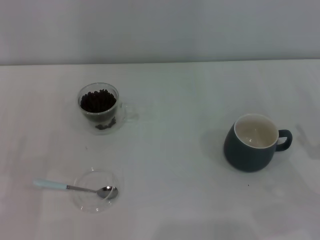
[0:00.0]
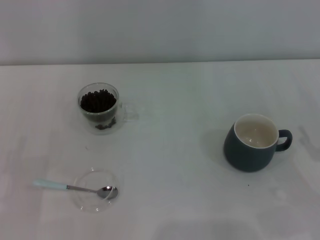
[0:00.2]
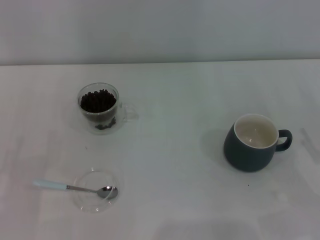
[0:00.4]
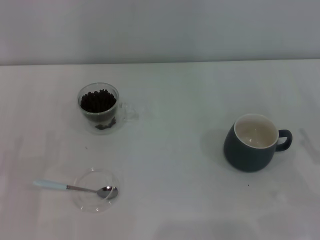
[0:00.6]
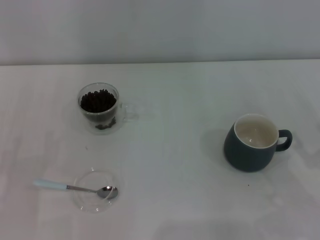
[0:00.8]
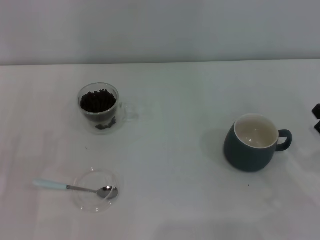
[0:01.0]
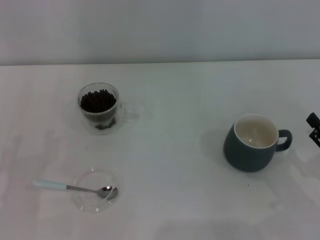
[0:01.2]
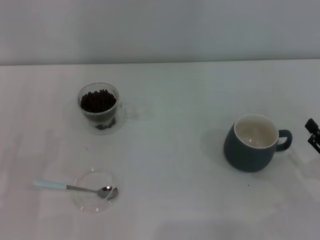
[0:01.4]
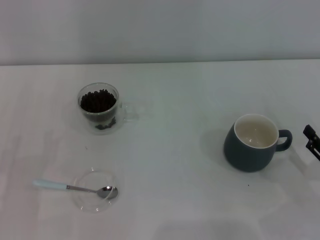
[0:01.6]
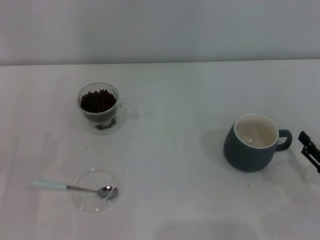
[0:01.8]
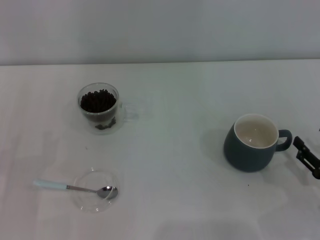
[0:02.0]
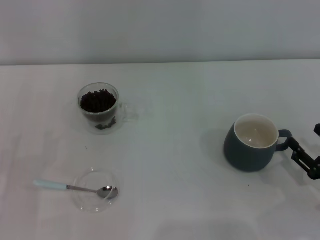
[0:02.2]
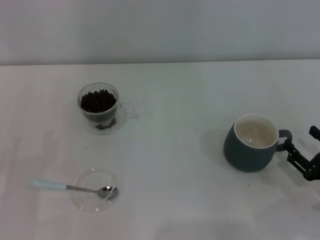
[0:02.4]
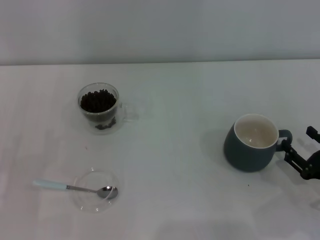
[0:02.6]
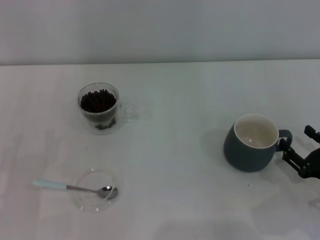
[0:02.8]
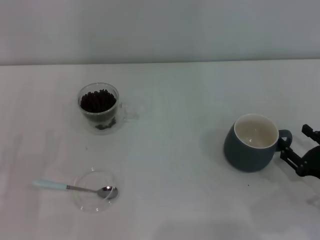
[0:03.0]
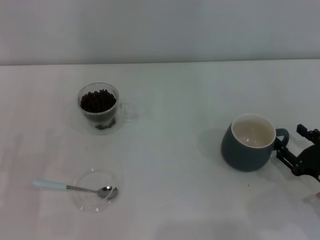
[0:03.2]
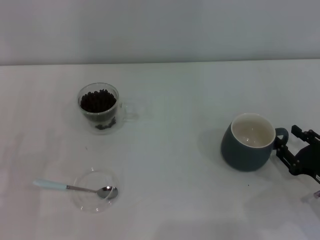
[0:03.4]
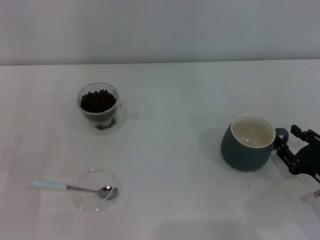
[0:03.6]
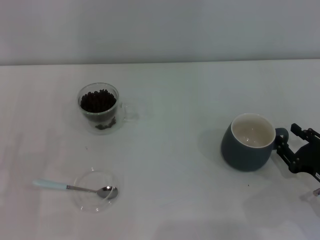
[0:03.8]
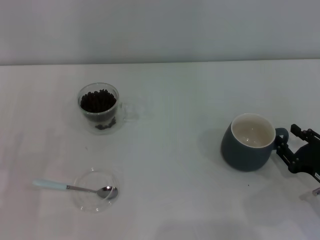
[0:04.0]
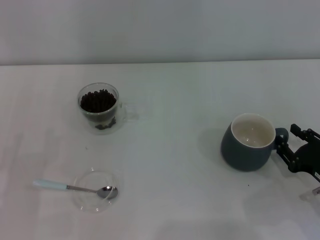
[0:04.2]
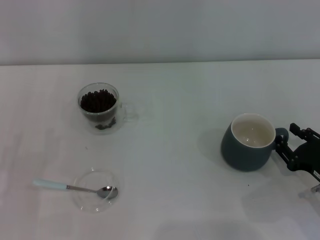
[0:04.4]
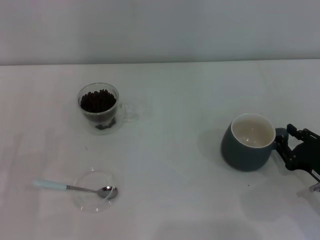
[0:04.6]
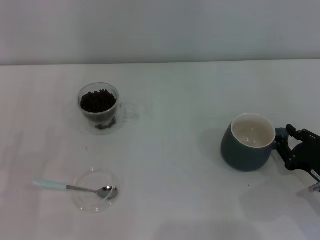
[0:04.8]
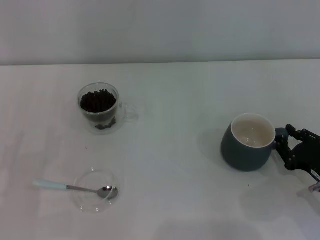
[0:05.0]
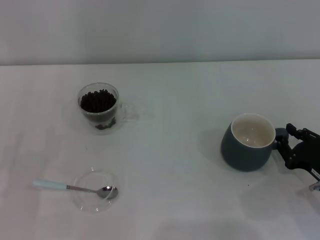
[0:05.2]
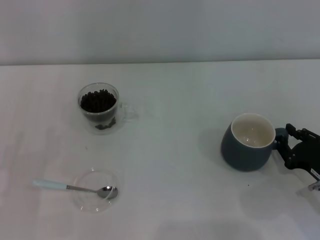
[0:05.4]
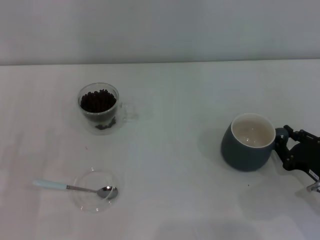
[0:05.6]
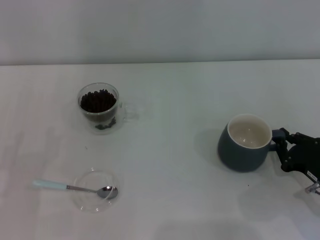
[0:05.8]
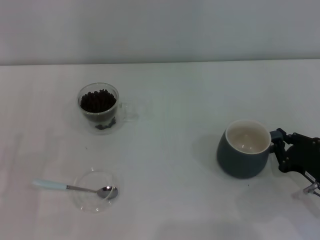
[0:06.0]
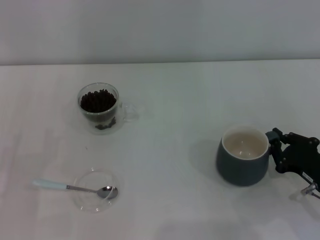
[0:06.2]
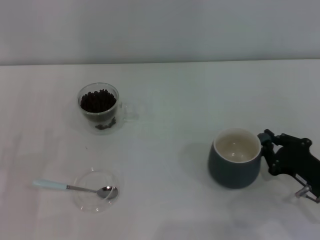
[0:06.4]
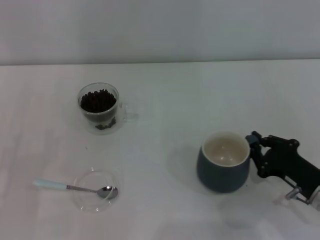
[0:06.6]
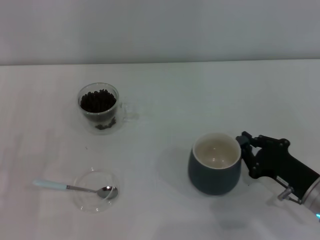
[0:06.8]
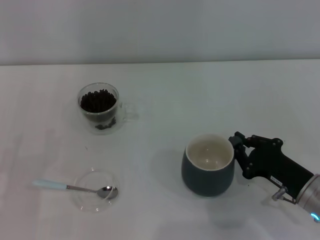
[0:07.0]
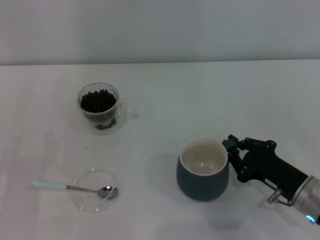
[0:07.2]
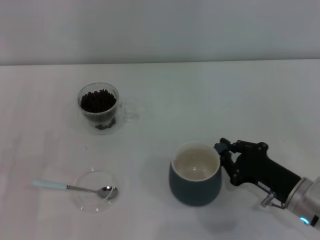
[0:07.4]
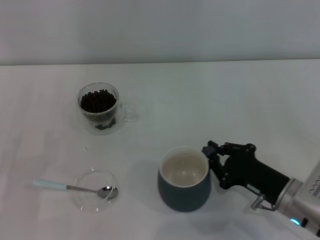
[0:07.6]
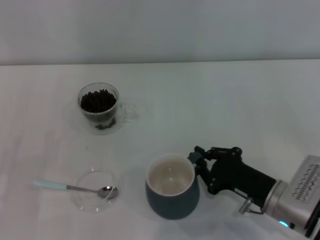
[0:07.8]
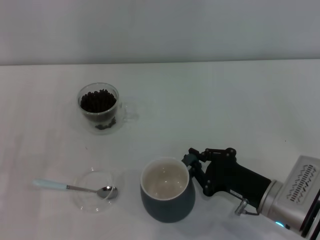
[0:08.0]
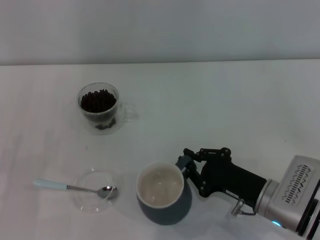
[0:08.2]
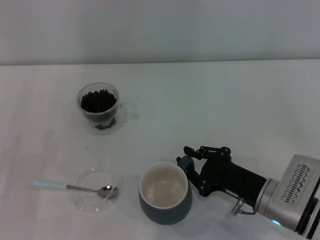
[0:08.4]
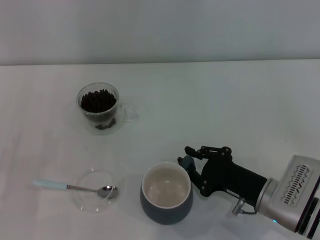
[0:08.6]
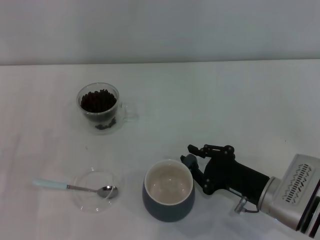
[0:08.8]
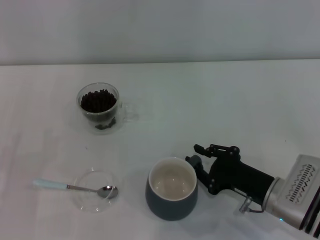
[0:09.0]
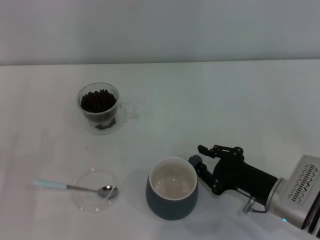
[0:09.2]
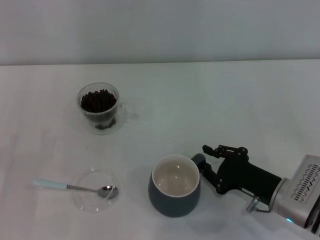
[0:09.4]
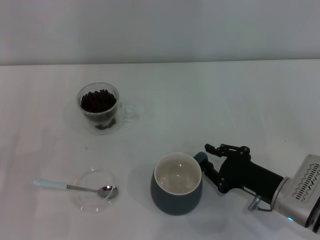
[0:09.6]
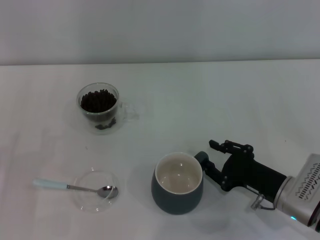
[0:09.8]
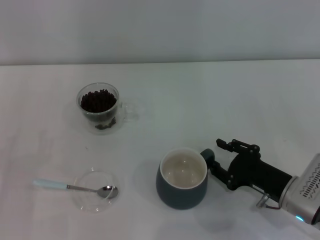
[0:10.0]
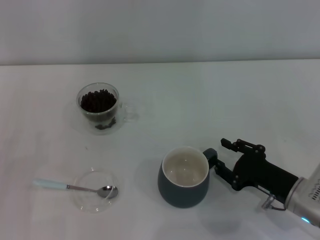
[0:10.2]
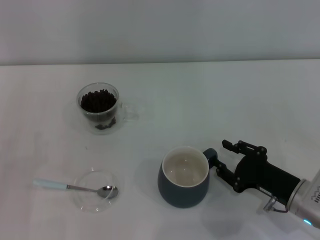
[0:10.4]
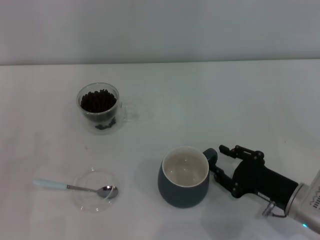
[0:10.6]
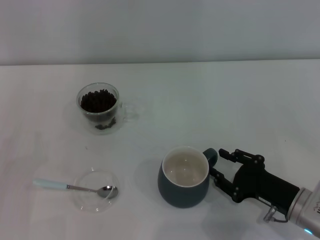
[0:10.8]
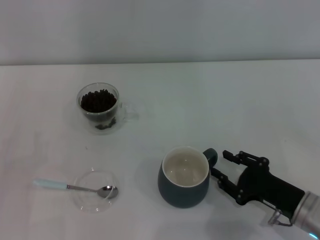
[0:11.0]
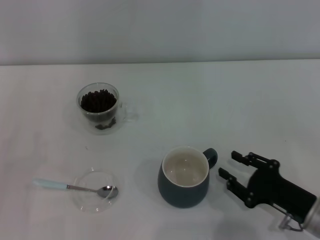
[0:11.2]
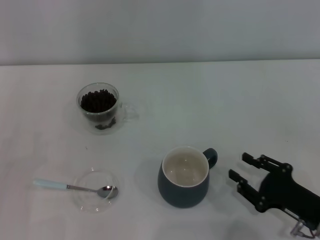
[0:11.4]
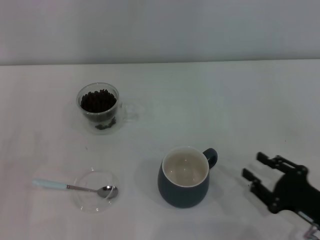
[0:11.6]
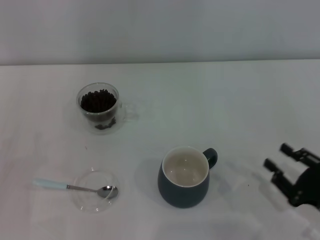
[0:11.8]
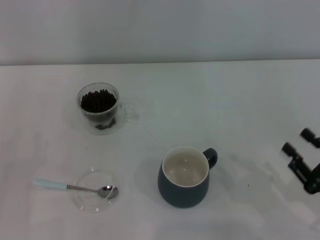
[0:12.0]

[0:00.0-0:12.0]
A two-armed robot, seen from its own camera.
Task of the whole recording: Use a blue spoon to take out the coffee beans from the glass and pour them into the gray cup.
Step, 0:00.0 to 0:11.4: Move the cup to the center of view with the left gripper.
0:01.6 to 0:04.4: There are only small adjustments of the grippers.
0:04.4 to 0:06.0: The right gripper closes up.
0:06.0 to 0:07.6: The right gripper moves to the left, roughly 10 cm.
0:07.6 to 0:10.4: There are only small adjustments of the grippers.
0:10.4 to 0:12.0: The right gripper is displaced backward and to the right by roughly 10 cm.

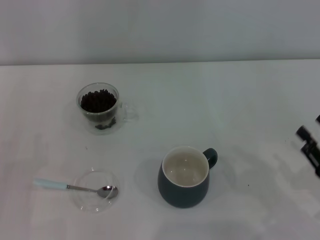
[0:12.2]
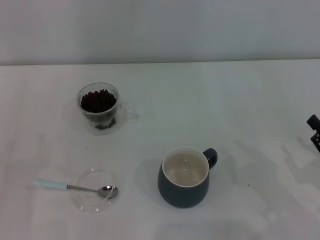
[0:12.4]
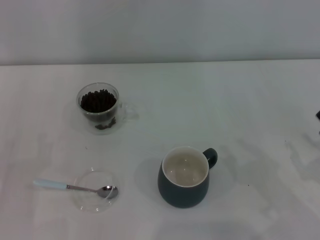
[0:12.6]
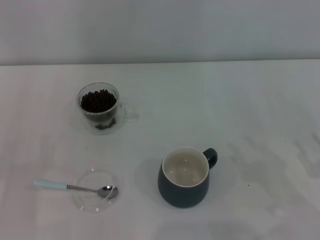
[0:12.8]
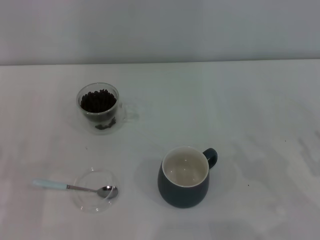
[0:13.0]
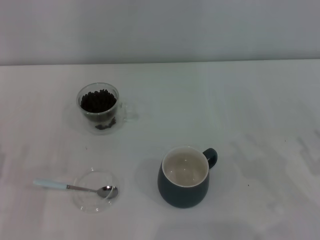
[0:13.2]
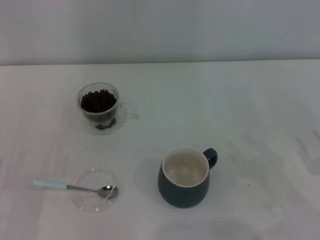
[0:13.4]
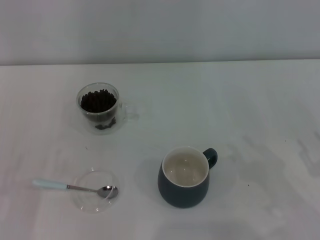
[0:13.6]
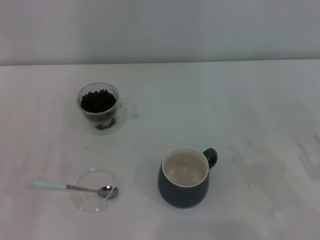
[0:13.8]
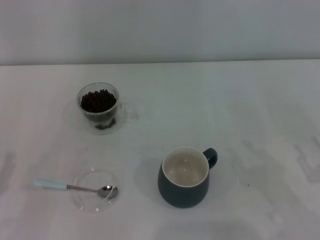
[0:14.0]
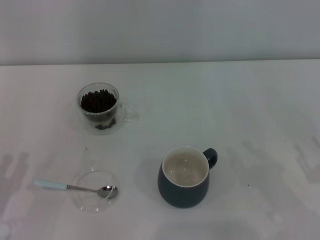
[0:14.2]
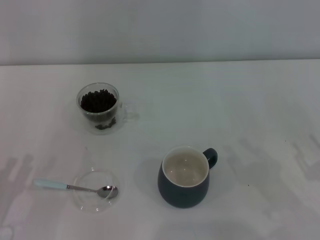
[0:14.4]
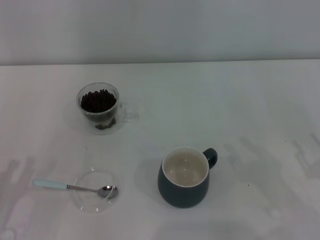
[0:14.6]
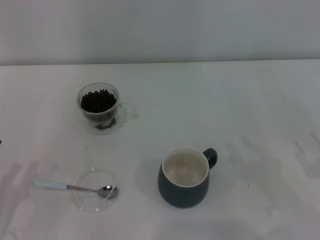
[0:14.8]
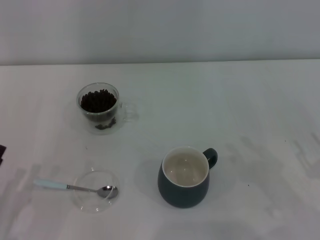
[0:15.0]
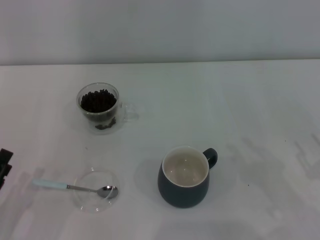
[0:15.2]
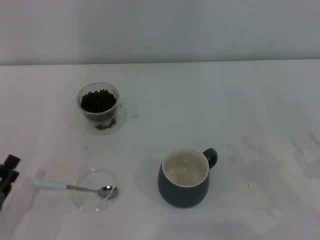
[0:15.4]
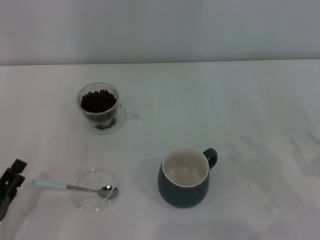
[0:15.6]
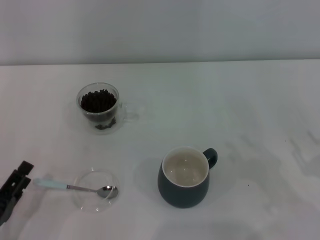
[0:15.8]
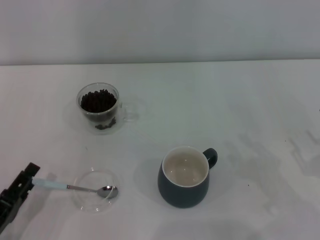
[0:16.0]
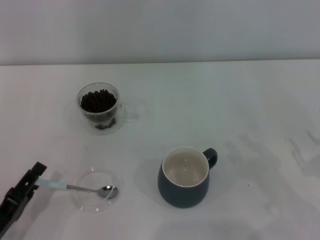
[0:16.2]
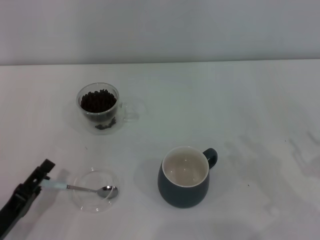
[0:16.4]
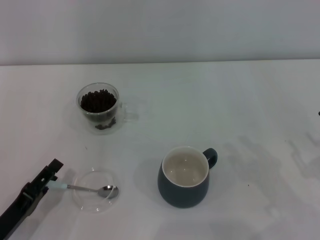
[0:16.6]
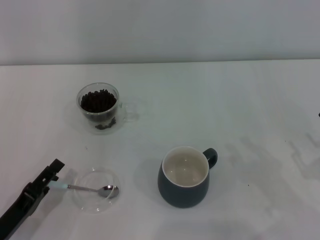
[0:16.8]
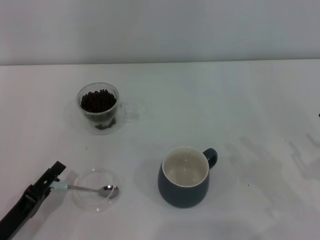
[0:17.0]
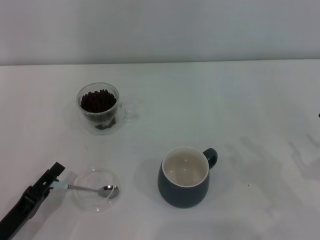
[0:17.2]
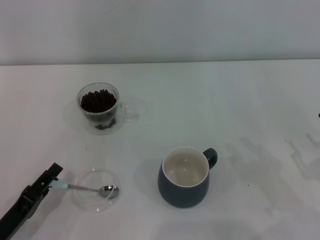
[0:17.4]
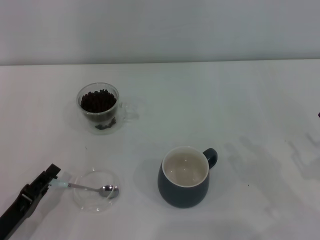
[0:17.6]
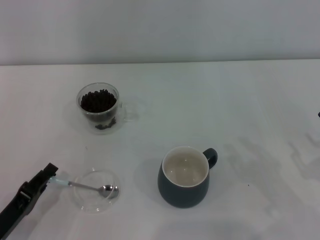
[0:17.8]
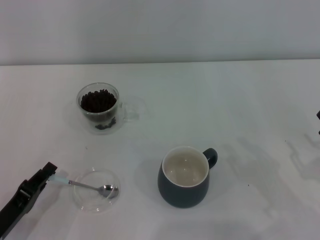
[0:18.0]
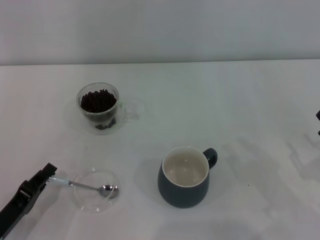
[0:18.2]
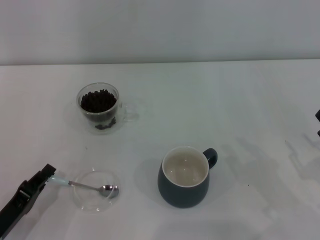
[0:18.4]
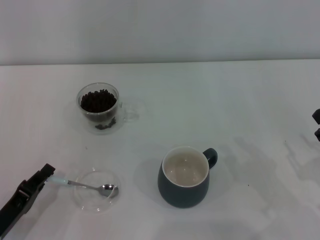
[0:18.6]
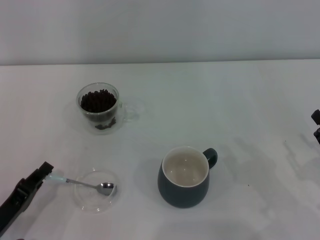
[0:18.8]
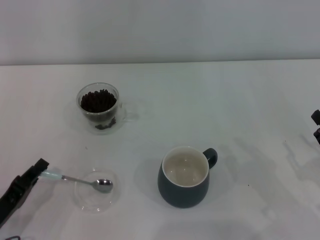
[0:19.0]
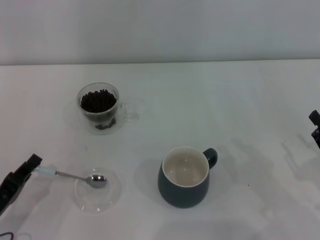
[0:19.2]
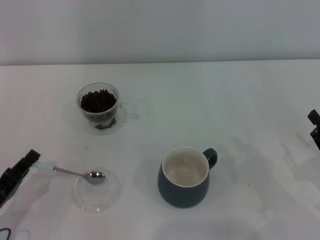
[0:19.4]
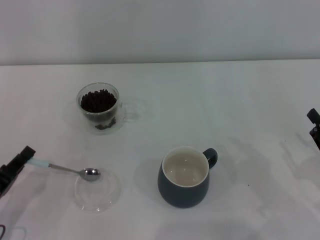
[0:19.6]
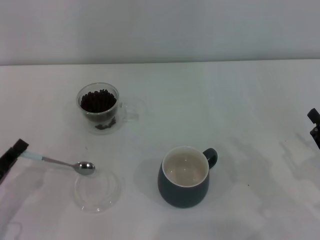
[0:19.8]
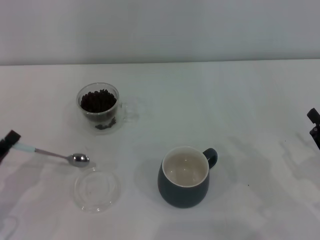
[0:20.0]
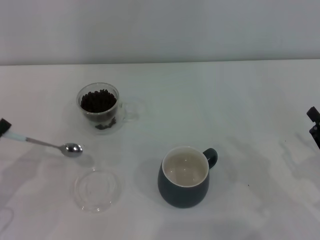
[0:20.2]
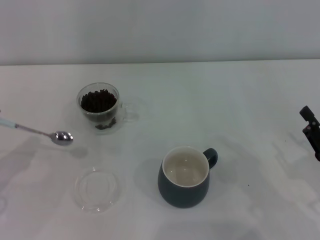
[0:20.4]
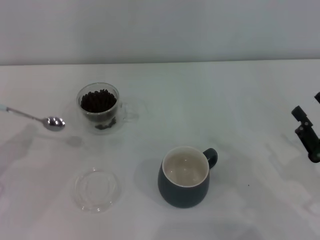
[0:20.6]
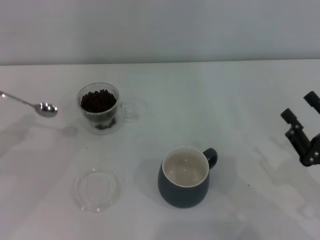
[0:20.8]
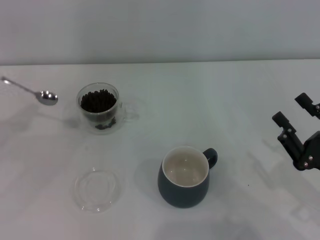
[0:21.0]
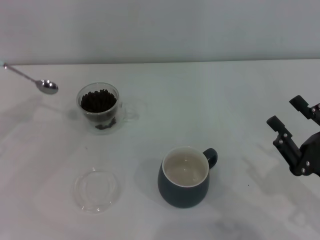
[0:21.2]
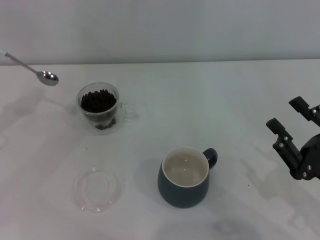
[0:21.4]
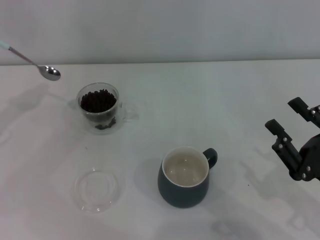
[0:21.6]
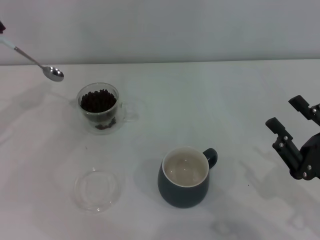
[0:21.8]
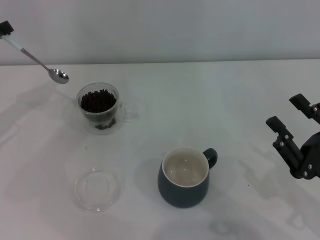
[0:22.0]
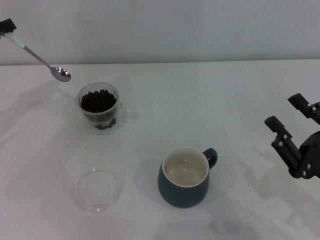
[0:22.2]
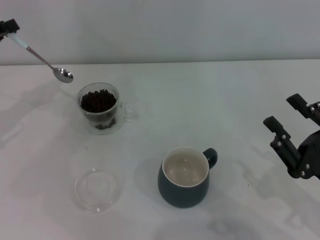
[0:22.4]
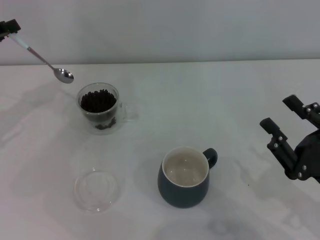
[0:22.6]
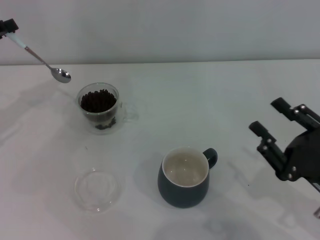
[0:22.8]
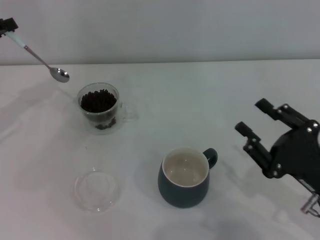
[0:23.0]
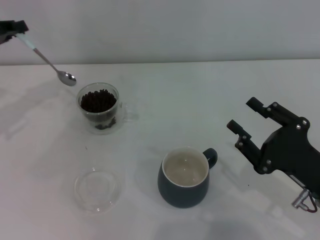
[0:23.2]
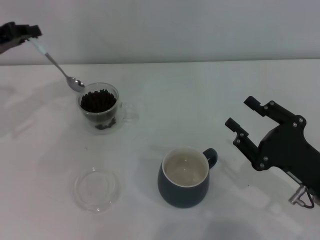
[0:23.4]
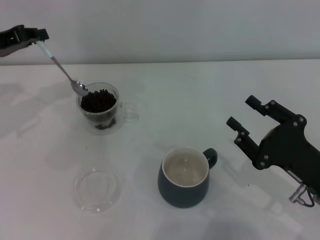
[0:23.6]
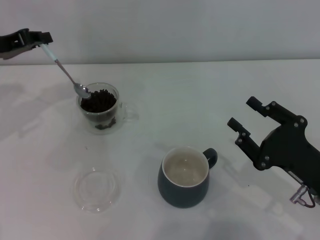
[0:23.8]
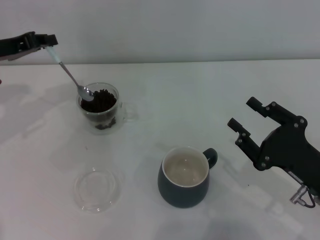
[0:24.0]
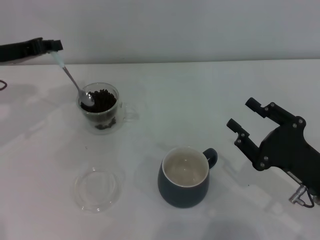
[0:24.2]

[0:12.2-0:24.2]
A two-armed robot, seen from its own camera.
Task of the whole recording: Use a blue spoon to take out the coffee beans from the glass and pour them into the gray cup.
Step, 0:12.2 to 0:19.8: Pick up the spoon with the right gripper.
0:15.2 to 0:16.6: There are only small adjustments of the grippers.
0:16.6 to 0:18.2: The left gripper closes up.
0:18.2 to 0:19.8: The grippers move only a little.
0:19.8 to 0:21.2: The left gripper shifts about 20 cm forward, upward and to the left.
0:21.2 to 0:22.6: The left gripper is displaced forward by some 5 cm.
0:22.6 to 0:24.2: The left gripper moves to the right, approximately 5 cm.
